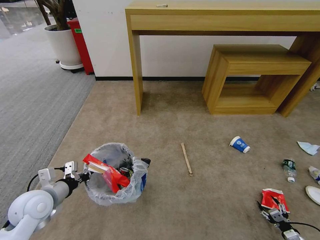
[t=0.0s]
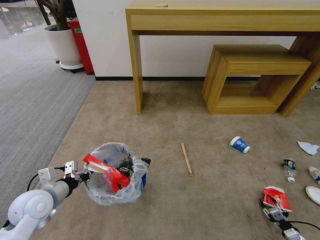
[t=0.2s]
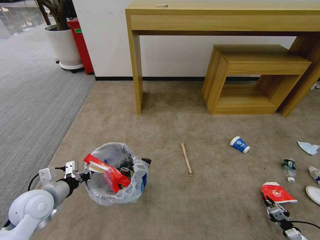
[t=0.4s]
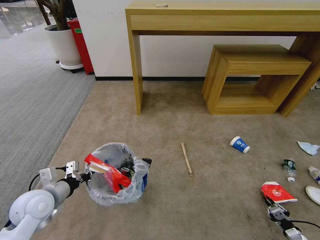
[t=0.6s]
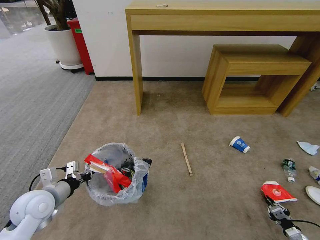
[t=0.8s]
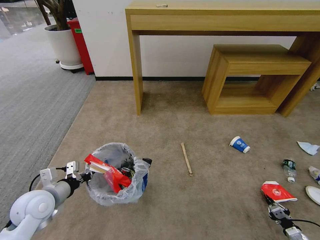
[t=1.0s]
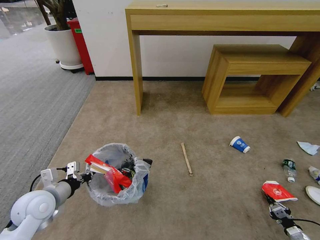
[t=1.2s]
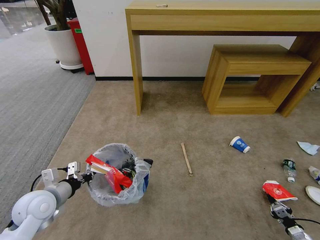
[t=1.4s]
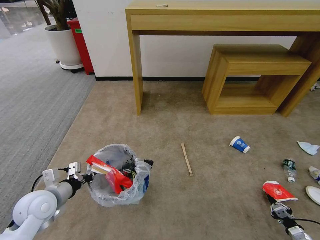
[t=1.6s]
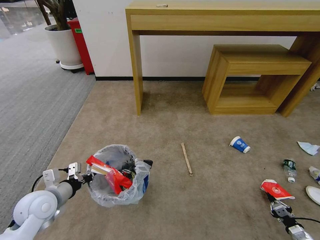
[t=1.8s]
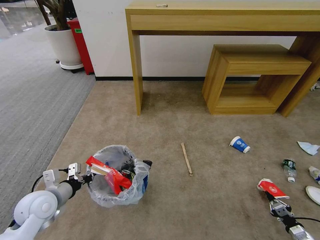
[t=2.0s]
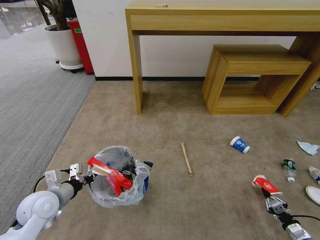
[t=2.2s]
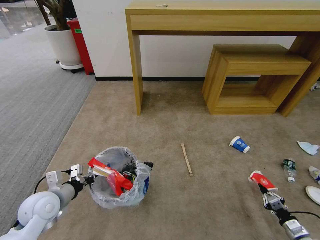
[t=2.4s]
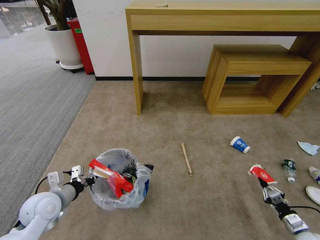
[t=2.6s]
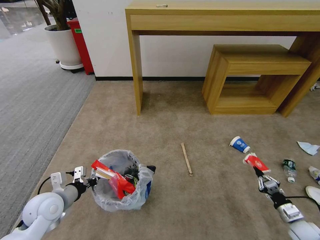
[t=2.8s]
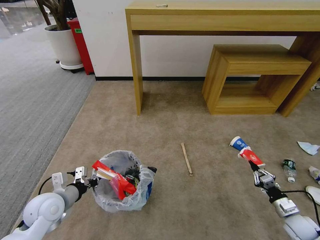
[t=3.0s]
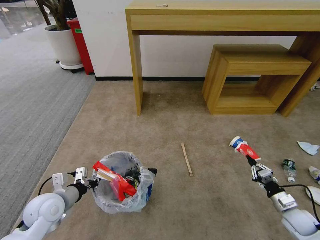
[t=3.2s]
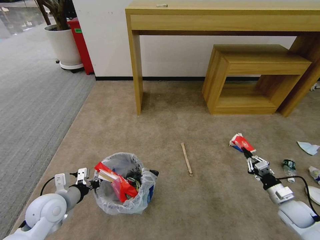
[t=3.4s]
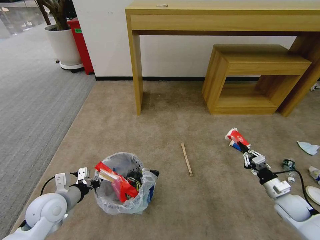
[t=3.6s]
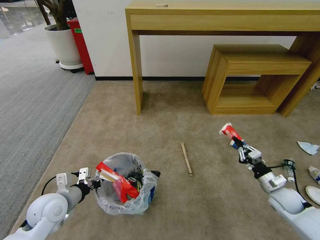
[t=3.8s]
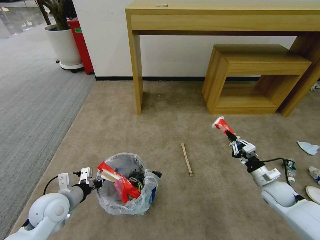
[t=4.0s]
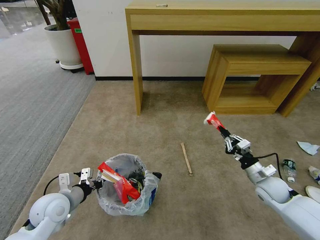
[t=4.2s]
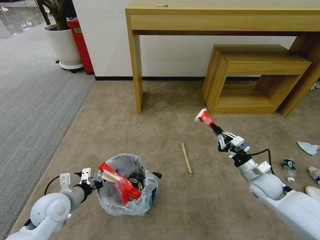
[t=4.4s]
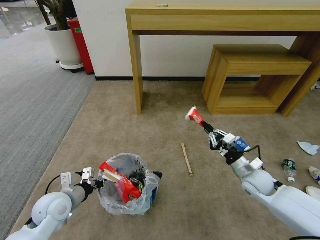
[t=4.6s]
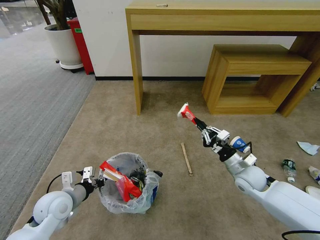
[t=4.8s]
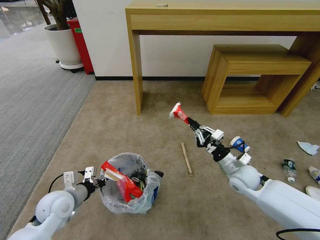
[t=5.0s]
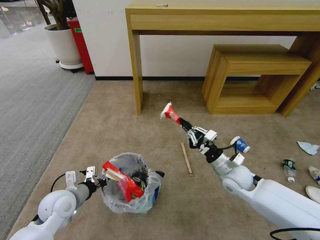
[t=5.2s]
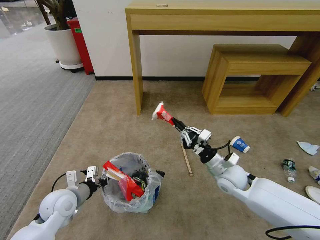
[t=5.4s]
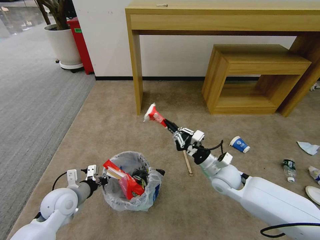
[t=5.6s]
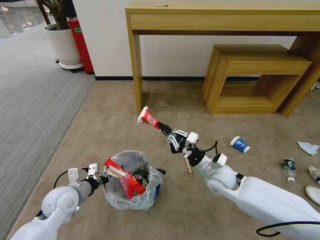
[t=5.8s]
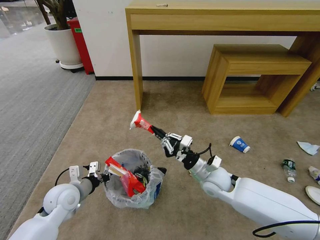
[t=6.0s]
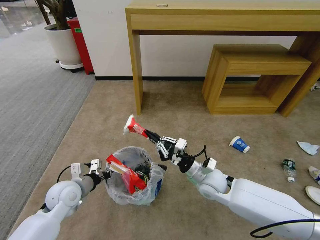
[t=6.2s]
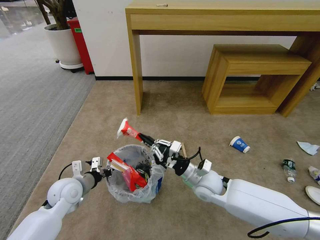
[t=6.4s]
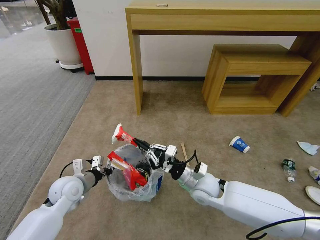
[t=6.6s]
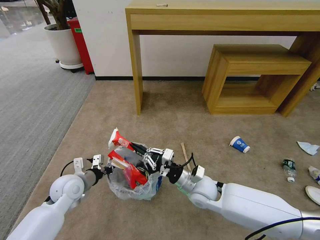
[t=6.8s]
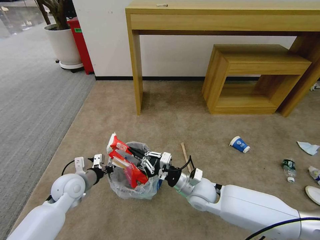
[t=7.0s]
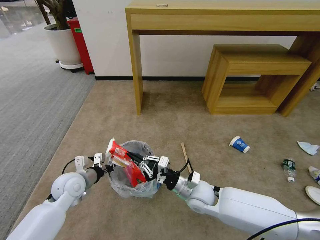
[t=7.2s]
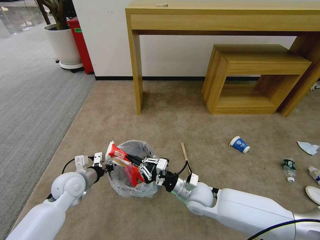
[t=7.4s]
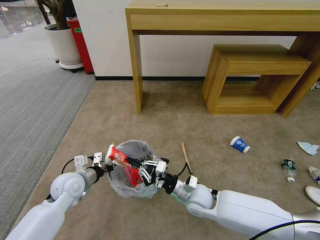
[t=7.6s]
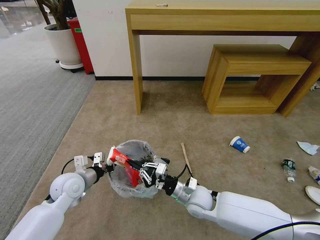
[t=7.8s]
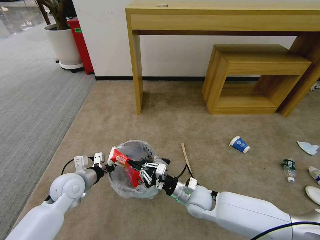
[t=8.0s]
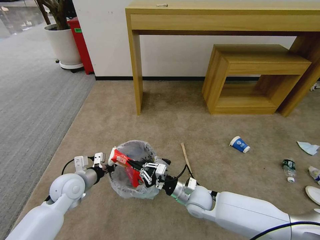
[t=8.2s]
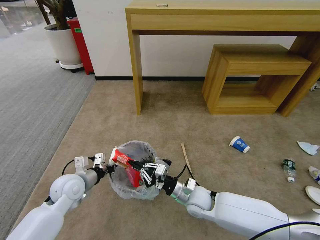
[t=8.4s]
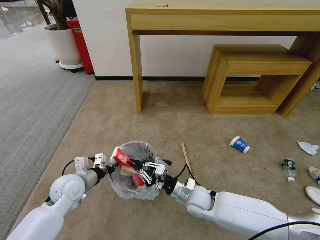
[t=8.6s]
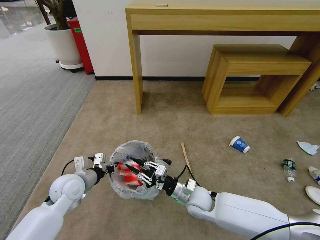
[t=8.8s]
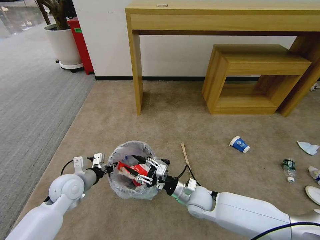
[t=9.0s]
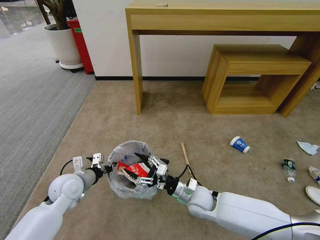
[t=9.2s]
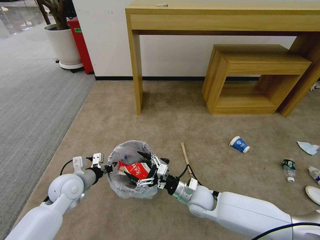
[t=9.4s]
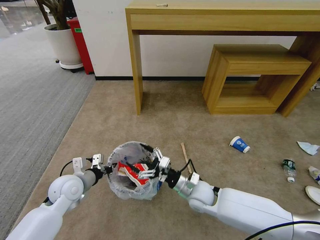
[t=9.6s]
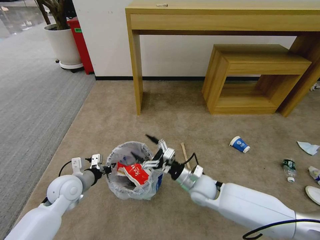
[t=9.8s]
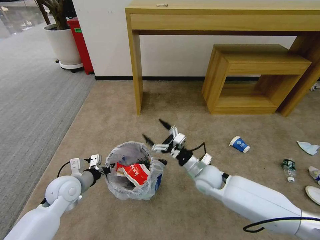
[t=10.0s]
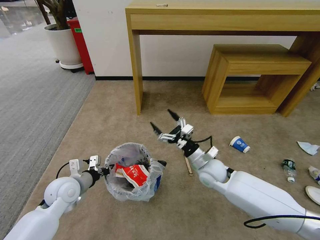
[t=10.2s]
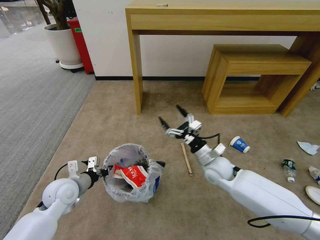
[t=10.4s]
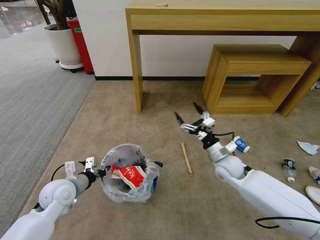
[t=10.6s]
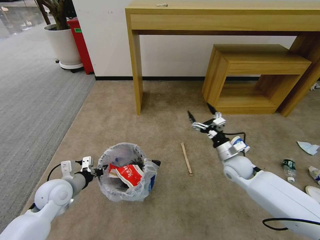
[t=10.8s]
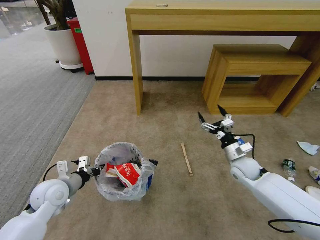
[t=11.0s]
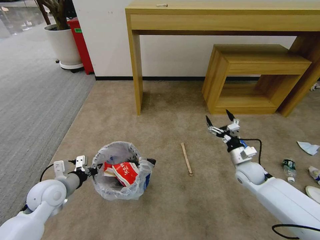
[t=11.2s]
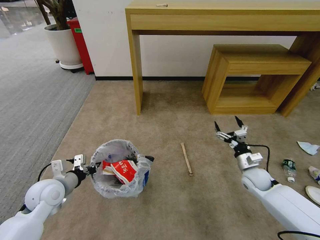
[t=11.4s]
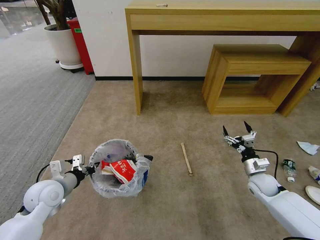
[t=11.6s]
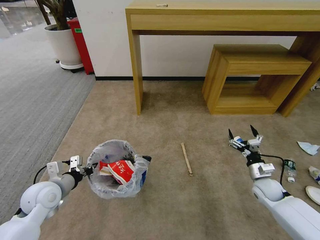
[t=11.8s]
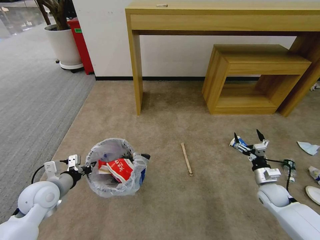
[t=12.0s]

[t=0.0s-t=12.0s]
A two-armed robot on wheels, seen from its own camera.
Task of the whole recording: Pick up the trash bin and place the garbage on the floor into it.
t=0.0s to t=1.6s: The right gripper closes.
t=1.6s to t=3.0s: The right gripper goes roughly 15 cm upward, to the left and forward.
t=3.0s to t=4.4s: The right gripper shifts some 20 cm to the left, upward and forward.
t=4.4s to t=6.0s: The right gripper shifts approximately 20 cm to the left.
t=6.0s to t=7.6s: The right gripper shifts roughly 10 cm to the left and downward.
t=7.6s to t=9.0s: The right gripper opens.
t=9.0s to t=10.4s: The right gripper moves forward, upward and to the right, approximately 15 cm, and opens its fingers.
t=10.4s to t=12.0s: The right gripper shifts about 25 cm to the right and downward; the left gripper moves some 5 cm.

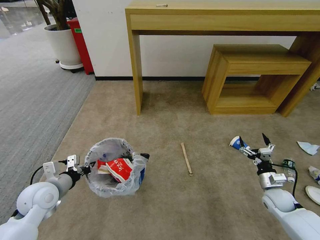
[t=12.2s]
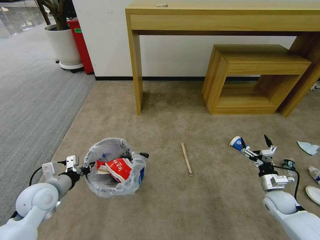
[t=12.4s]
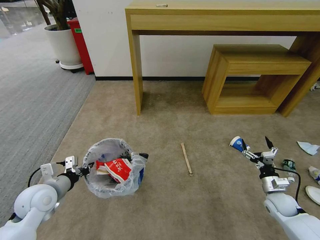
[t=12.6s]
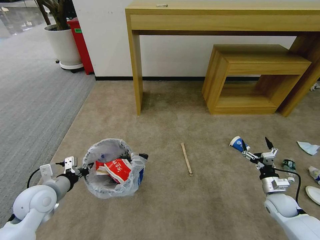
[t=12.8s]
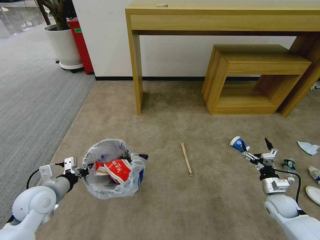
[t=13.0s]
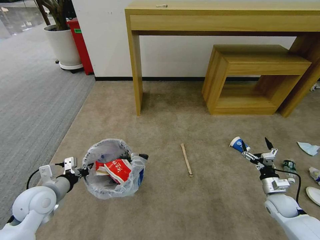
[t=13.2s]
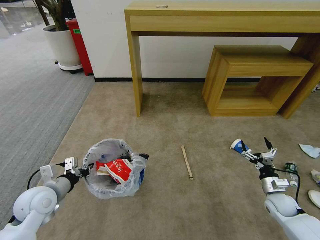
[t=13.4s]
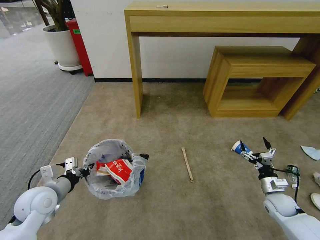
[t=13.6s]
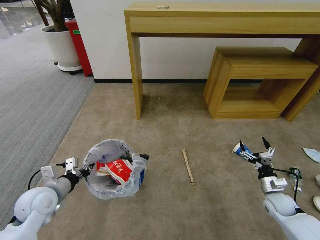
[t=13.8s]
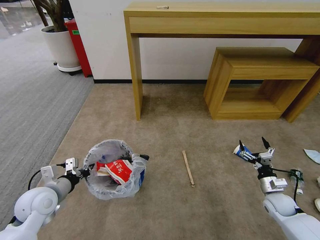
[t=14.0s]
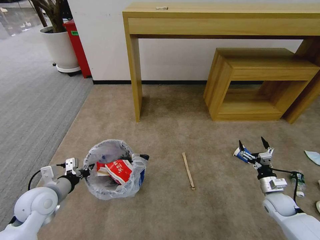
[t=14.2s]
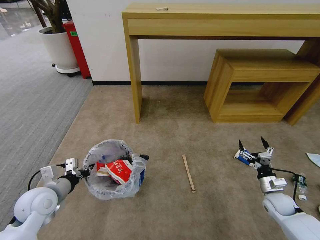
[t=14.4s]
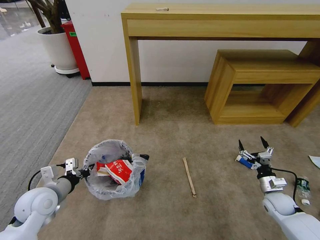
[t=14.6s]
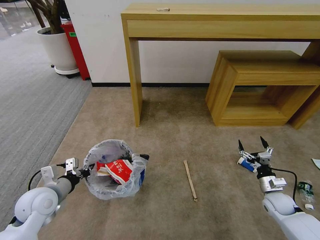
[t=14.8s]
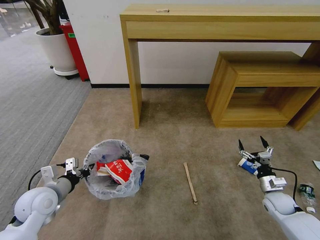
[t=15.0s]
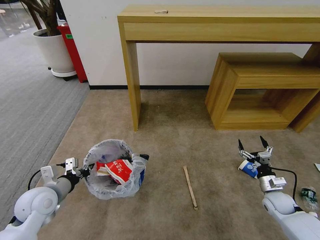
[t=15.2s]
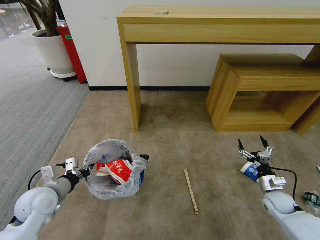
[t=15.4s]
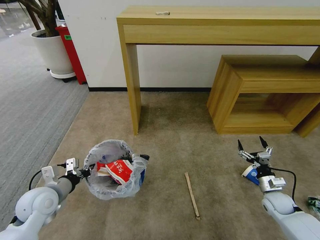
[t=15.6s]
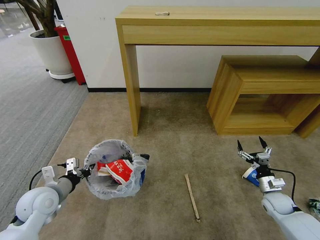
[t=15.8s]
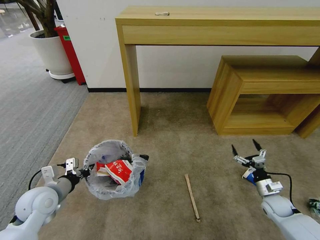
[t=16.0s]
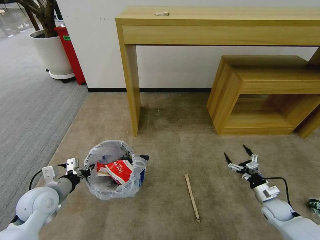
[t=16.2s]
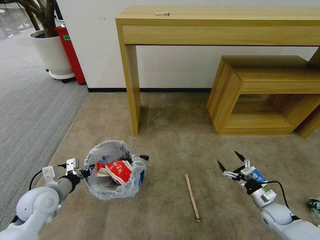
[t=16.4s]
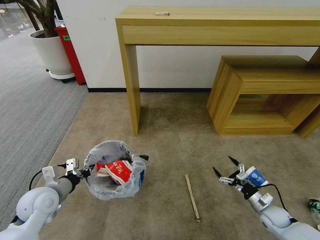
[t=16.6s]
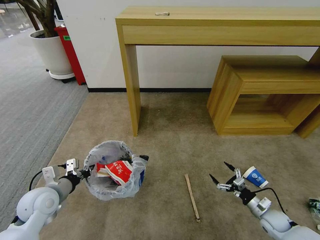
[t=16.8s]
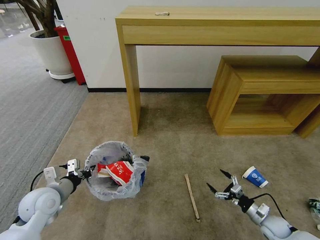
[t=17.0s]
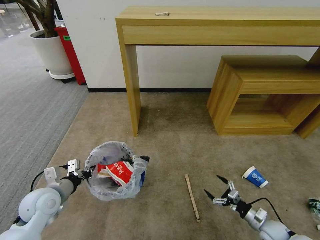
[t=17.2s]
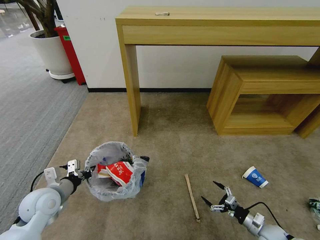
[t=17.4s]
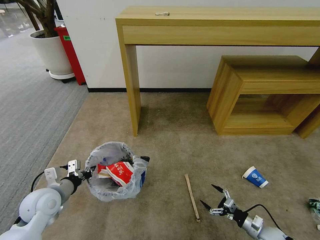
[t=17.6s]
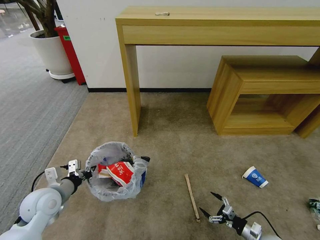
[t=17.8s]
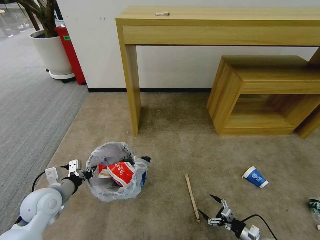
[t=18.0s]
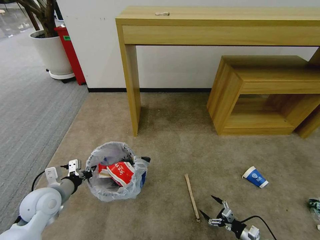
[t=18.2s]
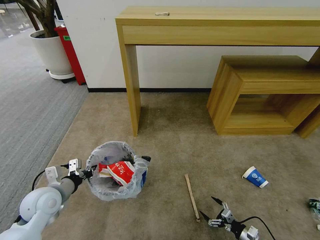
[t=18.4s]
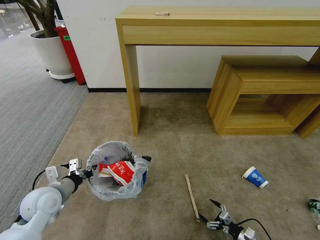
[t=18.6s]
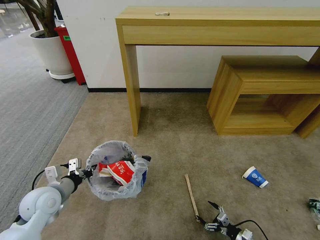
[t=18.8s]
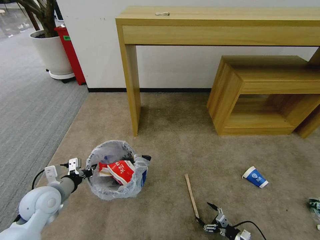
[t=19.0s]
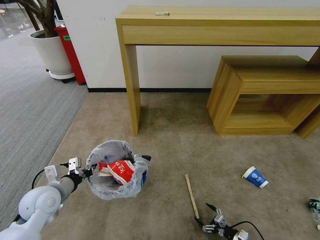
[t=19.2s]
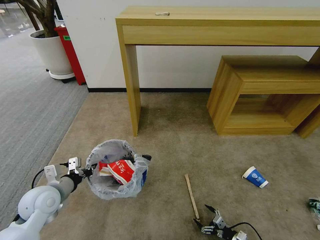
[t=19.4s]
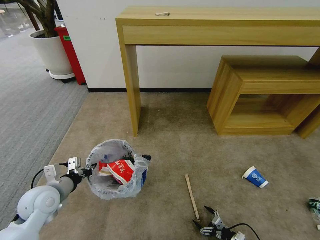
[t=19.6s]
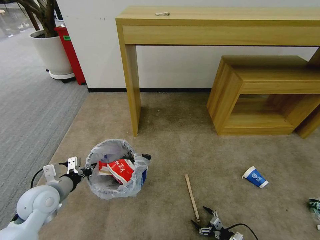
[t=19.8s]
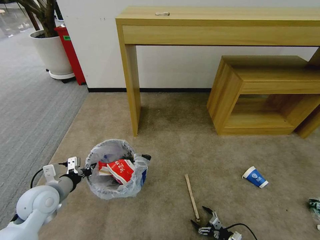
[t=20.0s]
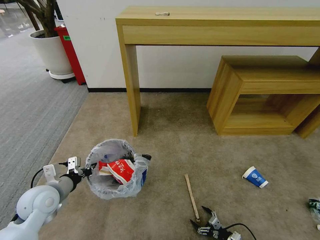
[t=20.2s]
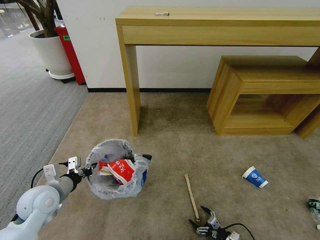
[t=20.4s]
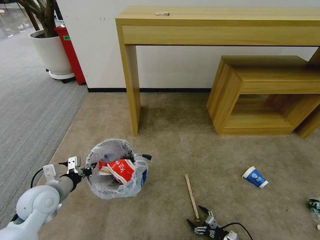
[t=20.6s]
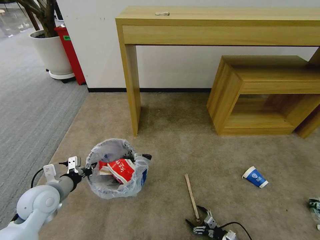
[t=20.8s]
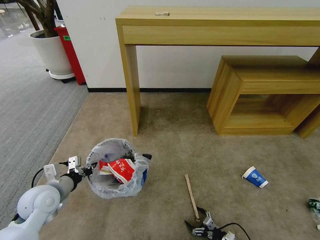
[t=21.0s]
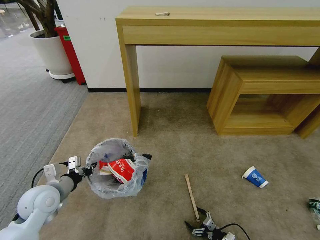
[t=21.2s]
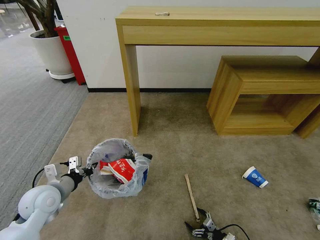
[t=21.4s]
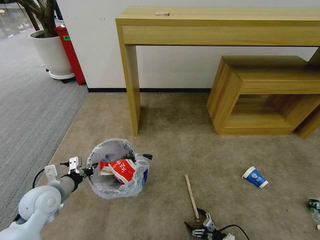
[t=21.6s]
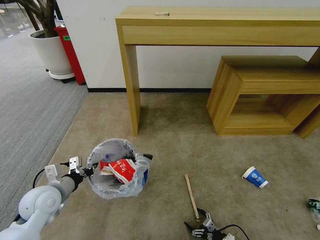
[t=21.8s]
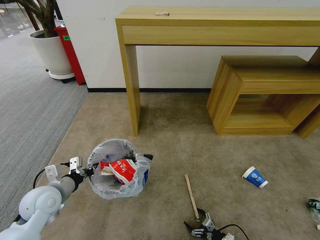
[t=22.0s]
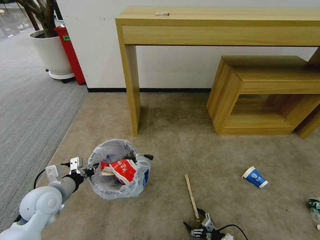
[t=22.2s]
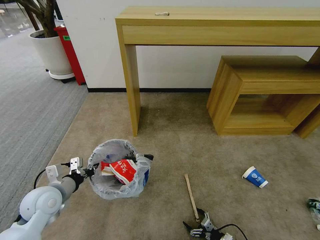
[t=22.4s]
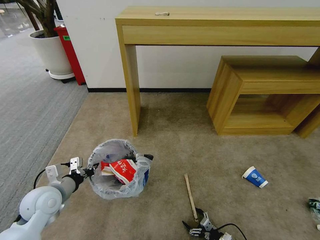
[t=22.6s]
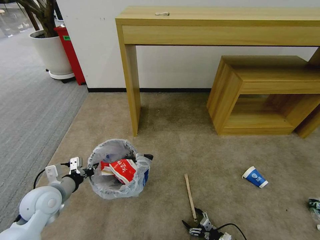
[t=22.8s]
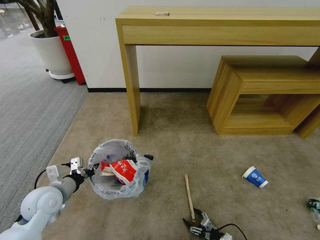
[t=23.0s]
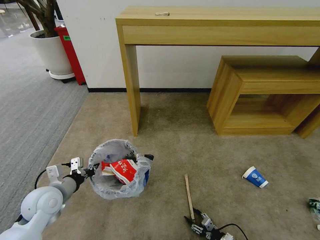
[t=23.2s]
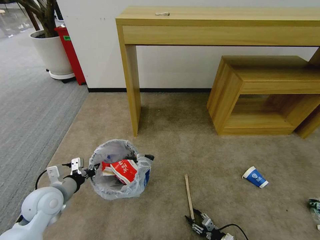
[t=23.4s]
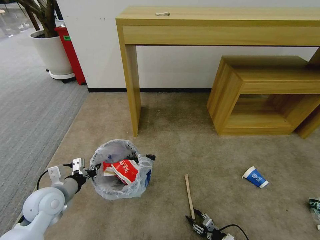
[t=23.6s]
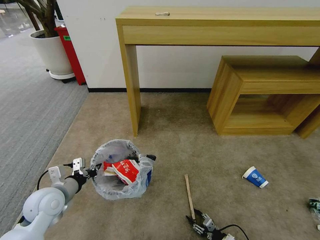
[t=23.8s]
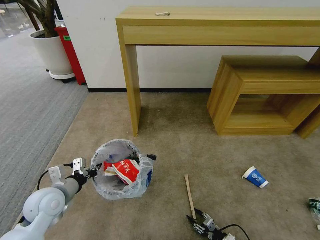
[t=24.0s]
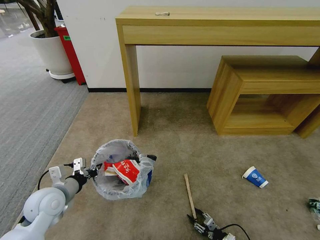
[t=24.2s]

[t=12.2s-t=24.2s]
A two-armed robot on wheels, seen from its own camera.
Task of the whole recording: Pick up the trash bin and place the garbage on the floor into it.
t=12.2s to t=13.8s: There are only small adjustments of the grippers.
t=15.2s to t=16.6s: The right gripper goes about 5 cm downward.
t=16.6s to t=18.2s: The right gripper goes roughly 15 cm backward and downward.
t=18.2s to t=19.8s: The right gripper goes approximately 5 cm downward.
t=19.8s to t=21.2s: The grippers move only a little.
t=21.2s to t=22.6s: Neither gripper changes place.
t=22.6s to t=24.2s: The right gripper closes up.
